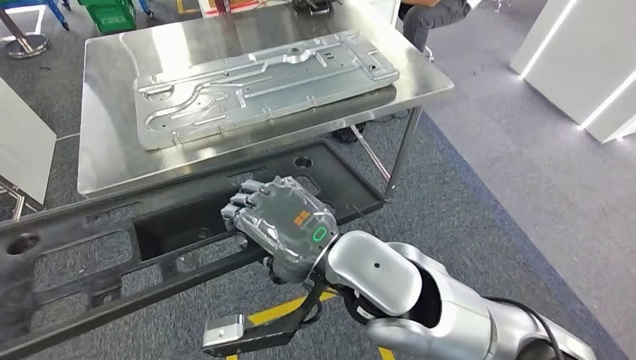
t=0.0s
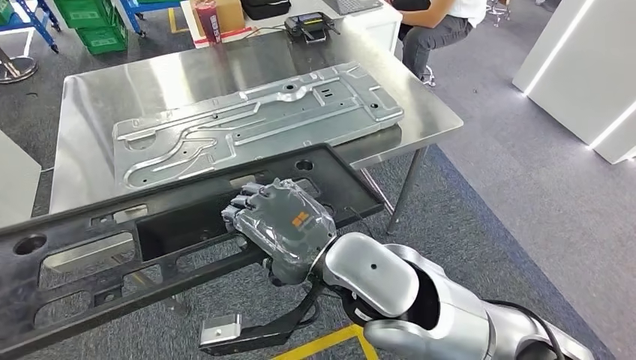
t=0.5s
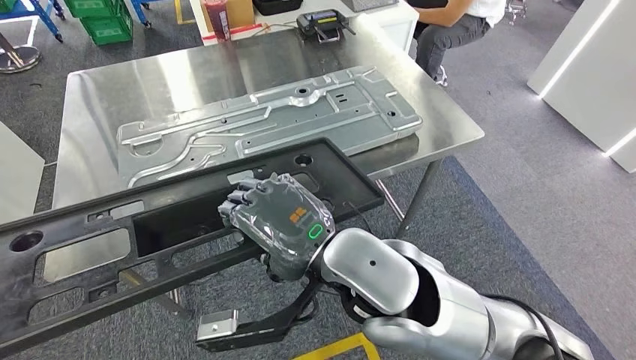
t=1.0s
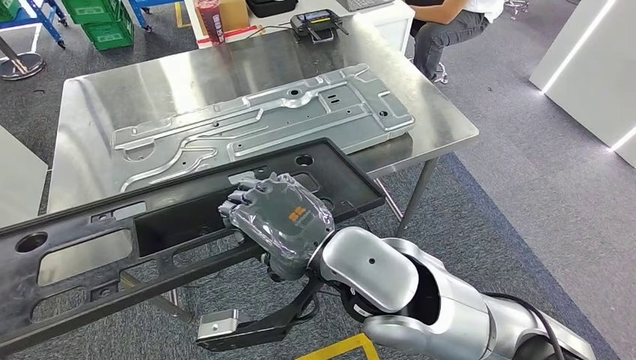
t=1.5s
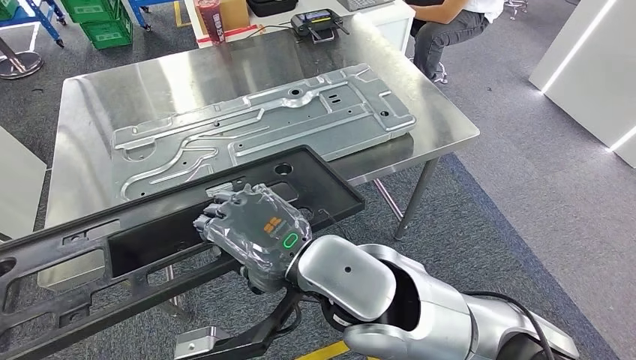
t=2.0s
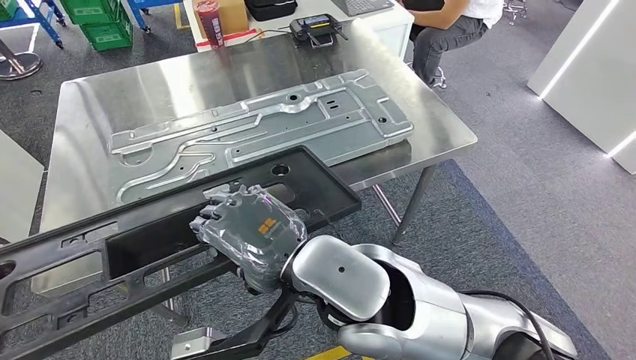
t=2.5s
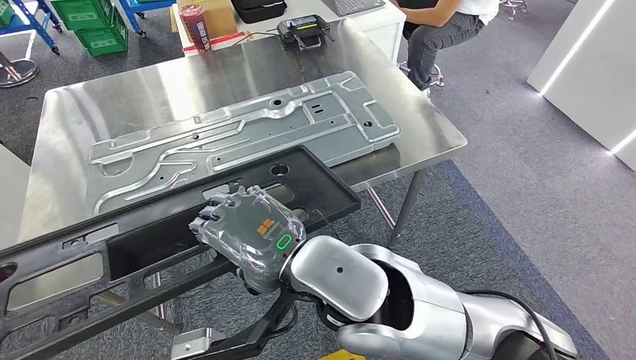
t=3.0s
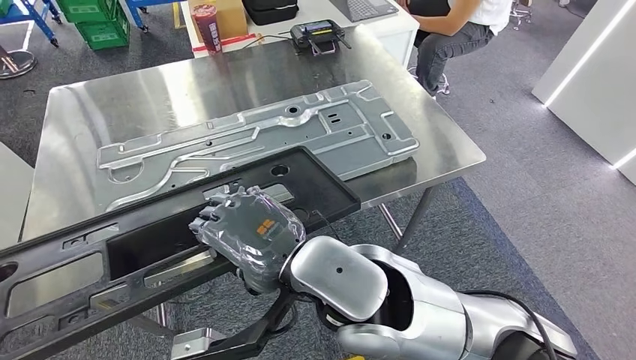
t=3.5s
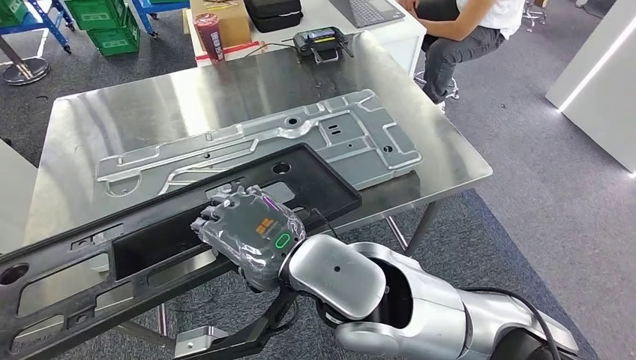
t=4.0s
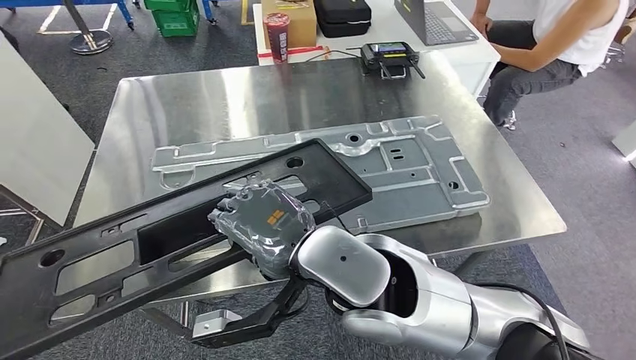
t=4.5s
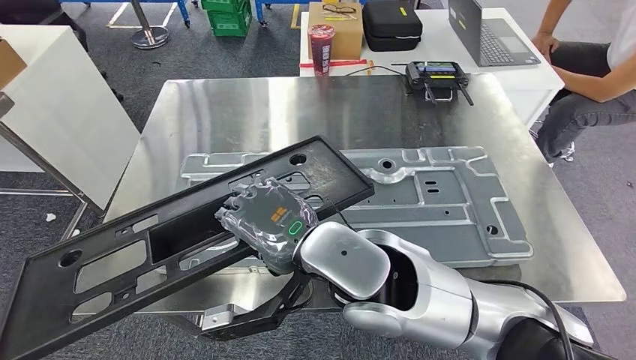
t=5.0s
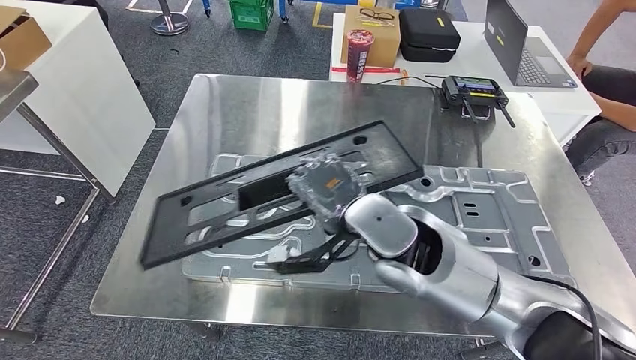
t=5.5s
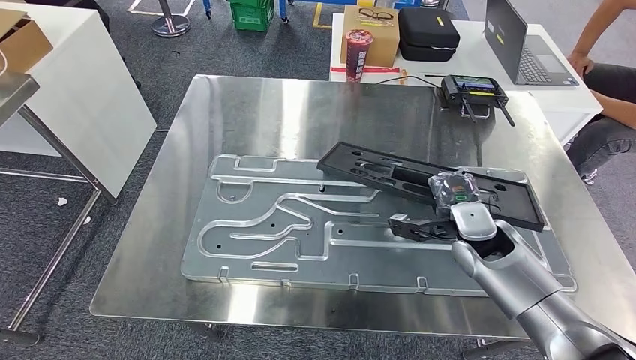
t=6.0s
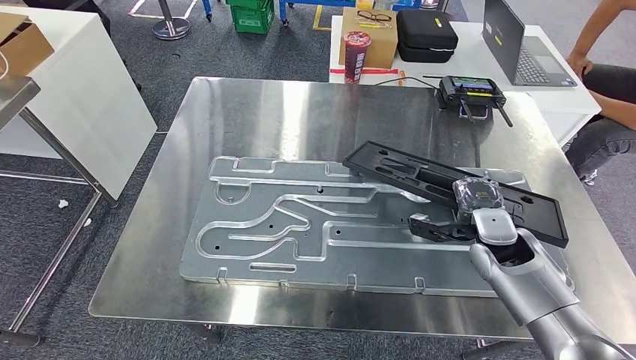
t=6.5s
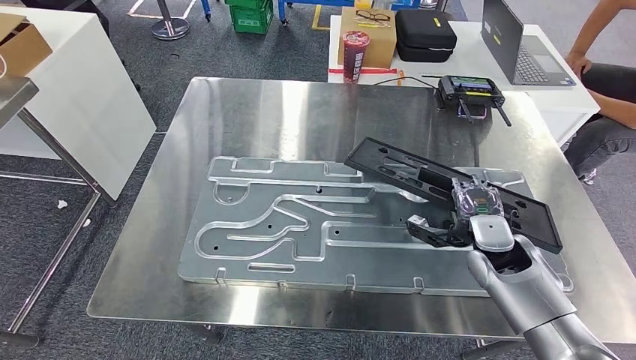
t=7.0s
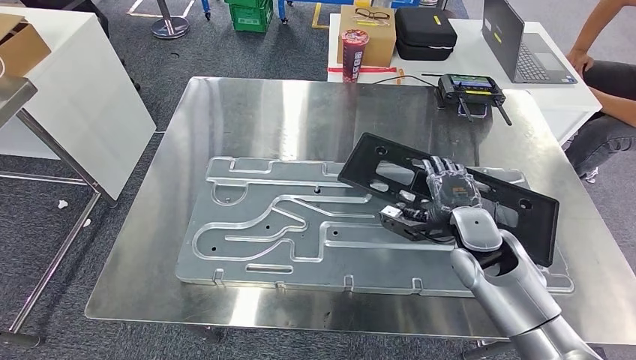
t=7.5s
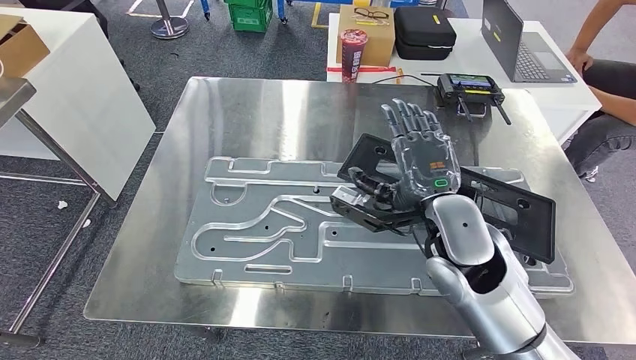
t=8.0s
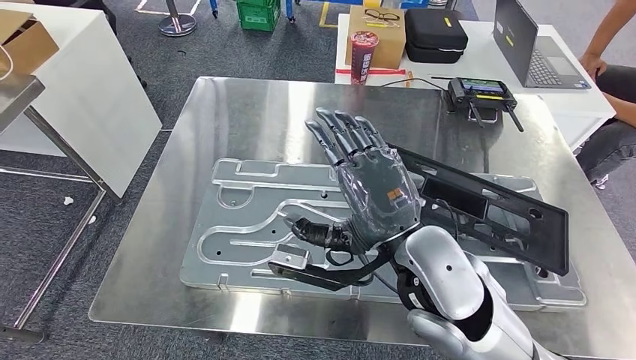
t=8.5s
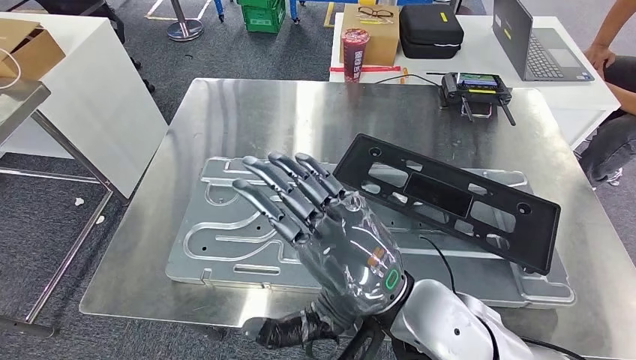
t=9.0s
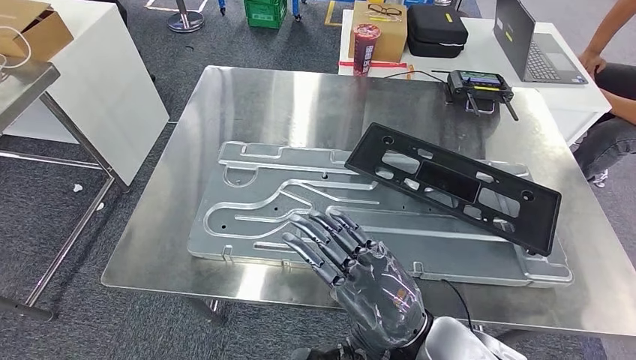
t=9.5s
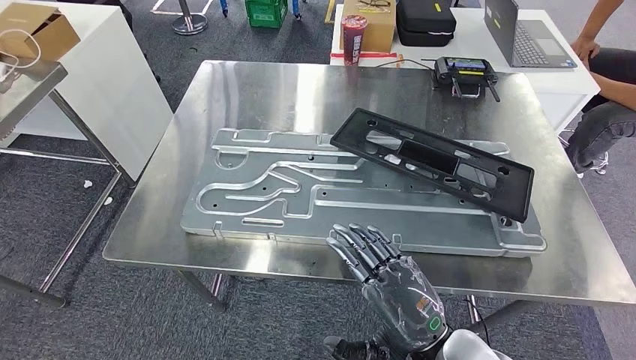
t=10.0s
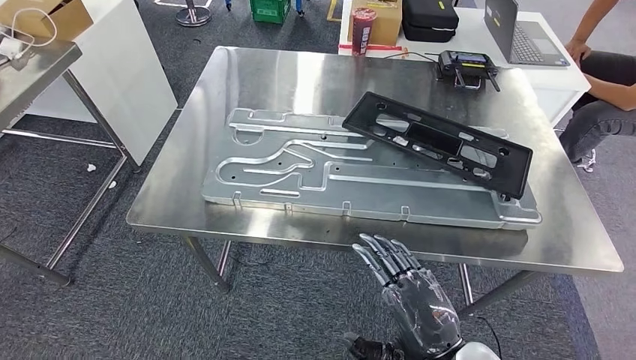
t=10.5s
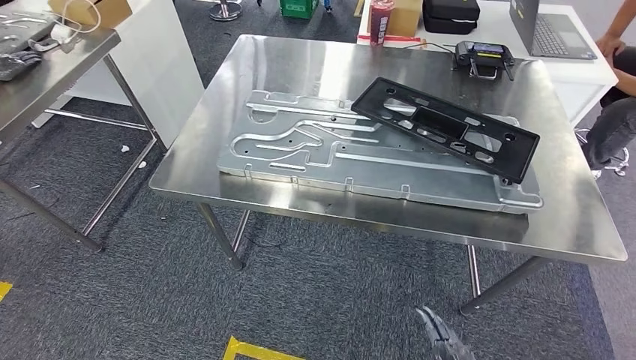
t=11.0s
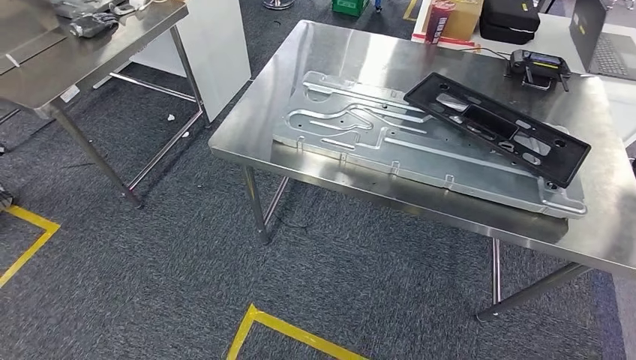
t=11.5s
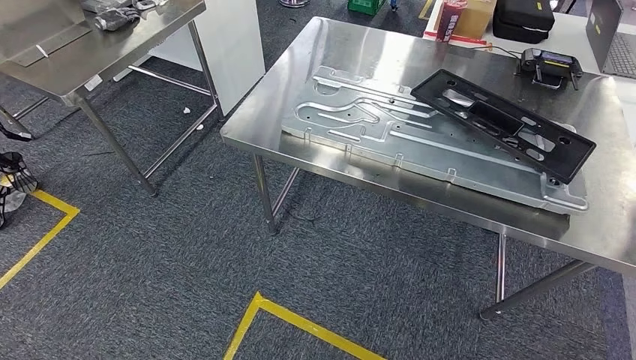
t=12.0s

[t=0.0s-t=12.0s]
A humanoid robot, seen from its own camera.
Step, t=0.0s to t=4.0s: Move the large material to the workbench.
Step, t=4.5s to t=10.0s: Insert the large material into the corresponding slot on the workbench.

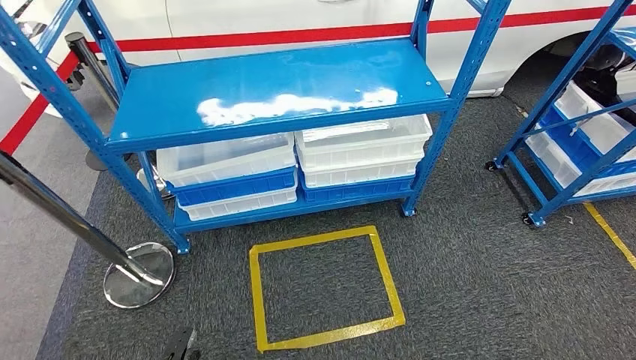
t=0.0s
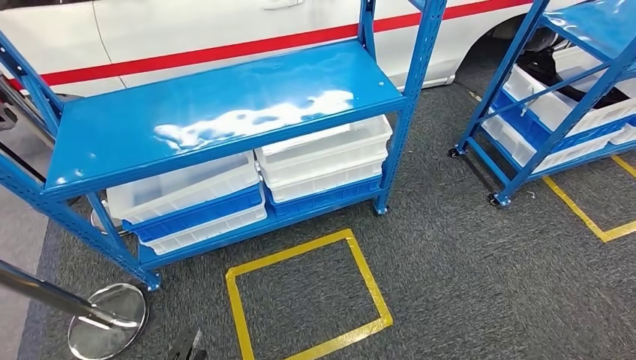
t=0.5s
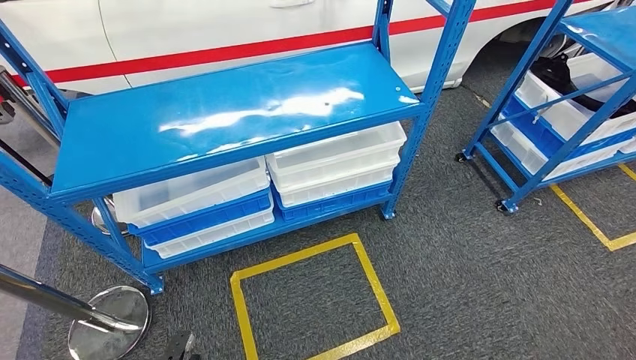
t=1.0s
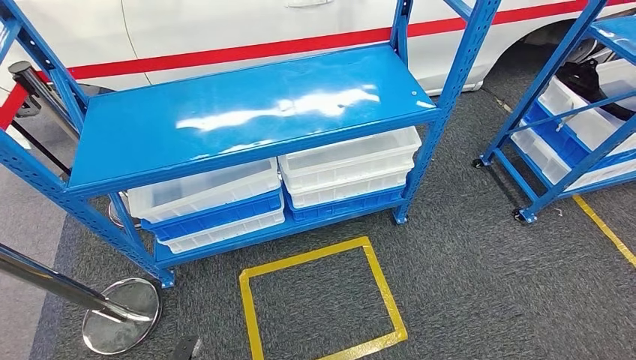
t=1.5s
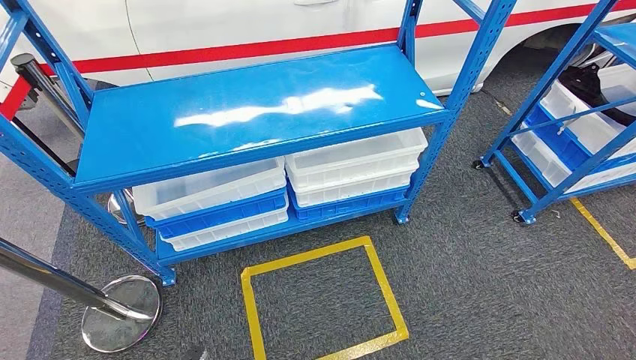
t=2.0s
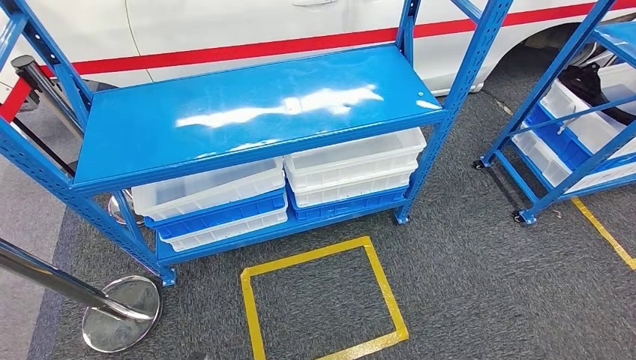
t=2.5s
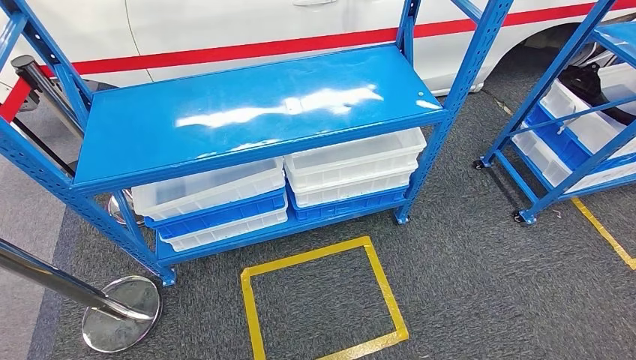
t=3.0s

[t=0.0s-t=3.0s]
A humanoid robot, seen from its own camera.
Step, t=0.0s to t=3.0s: Move to the initial position of the shelf.
t=1.5s to t=3.0s: The right hand moves forward and to the left, roughly 10 cm.
